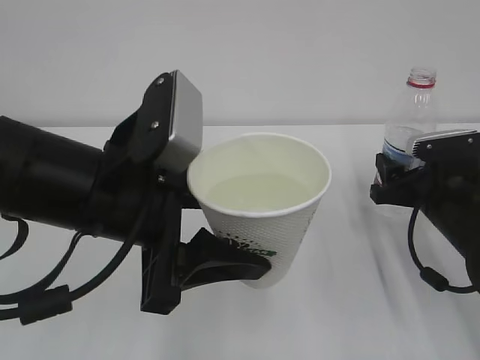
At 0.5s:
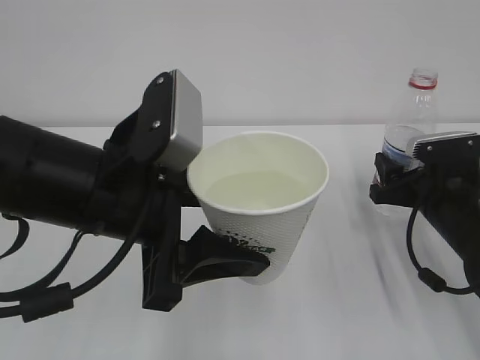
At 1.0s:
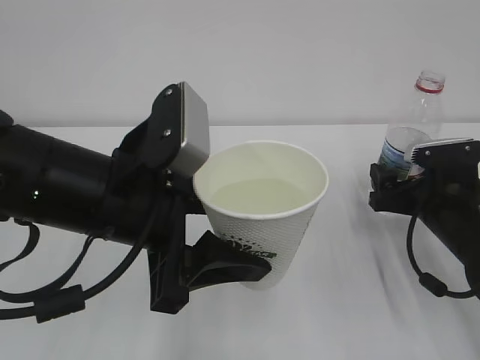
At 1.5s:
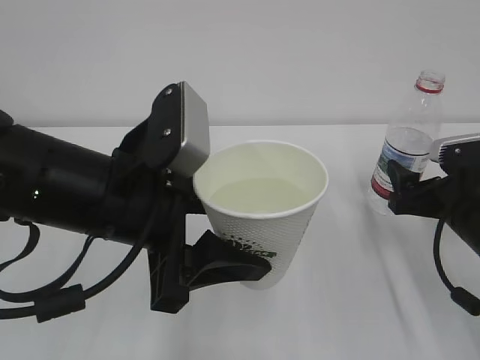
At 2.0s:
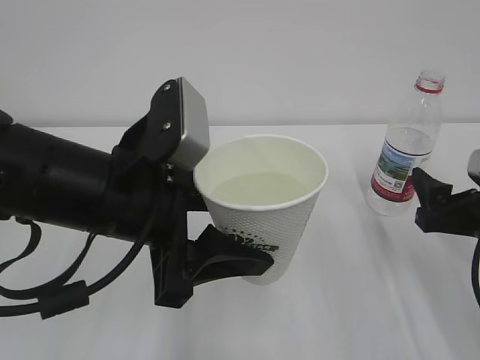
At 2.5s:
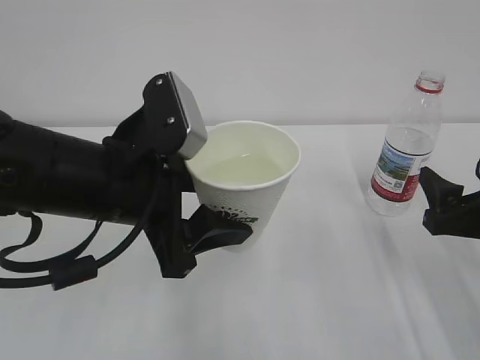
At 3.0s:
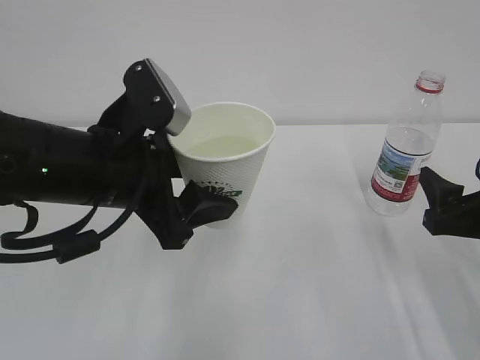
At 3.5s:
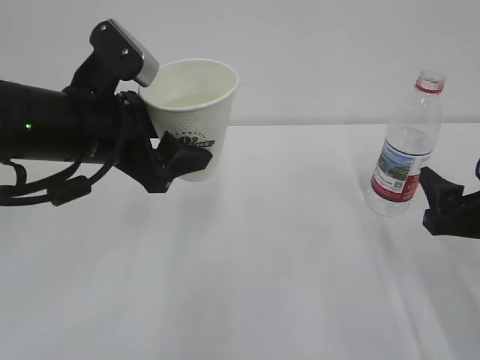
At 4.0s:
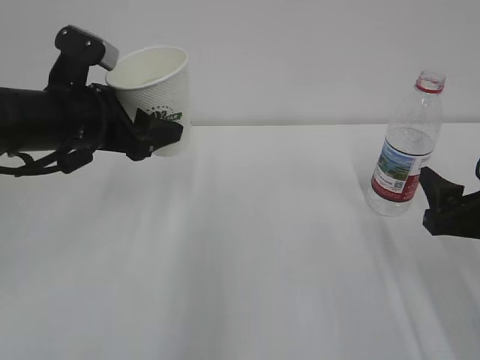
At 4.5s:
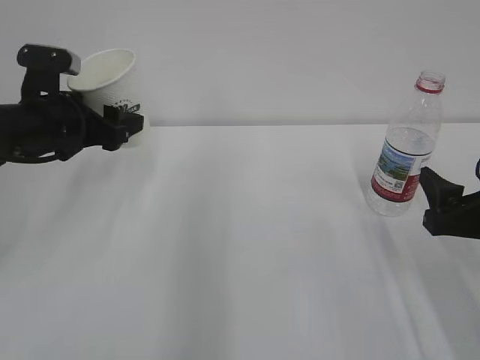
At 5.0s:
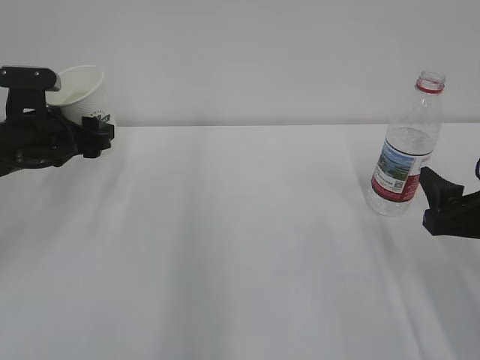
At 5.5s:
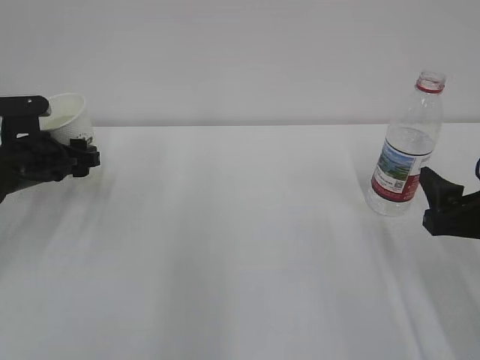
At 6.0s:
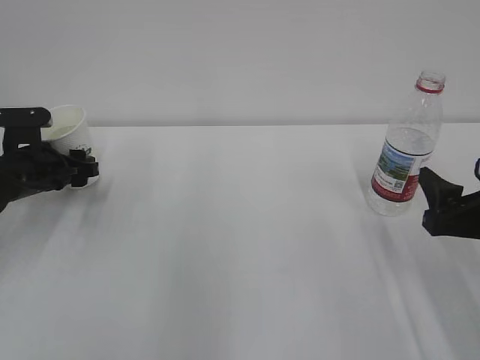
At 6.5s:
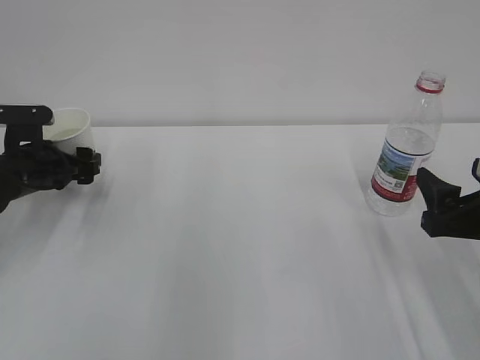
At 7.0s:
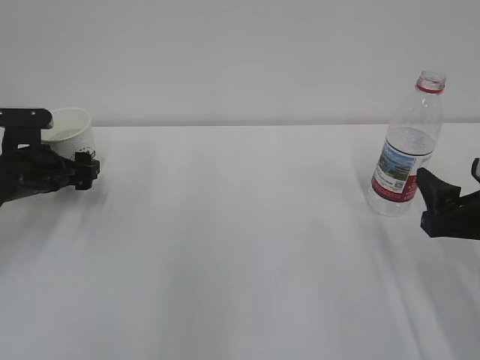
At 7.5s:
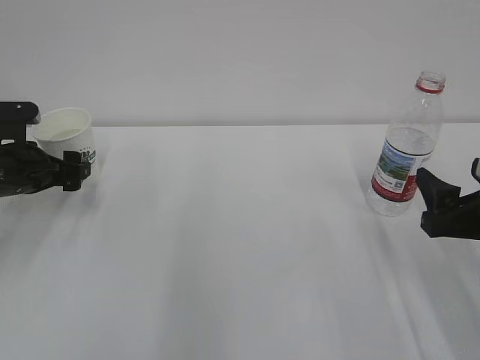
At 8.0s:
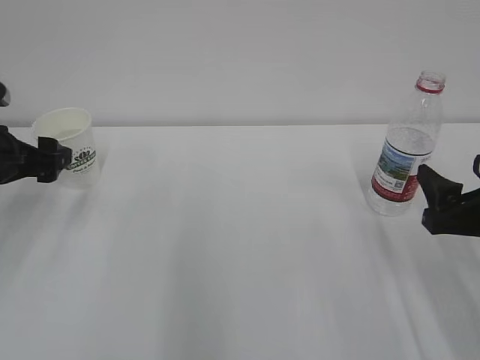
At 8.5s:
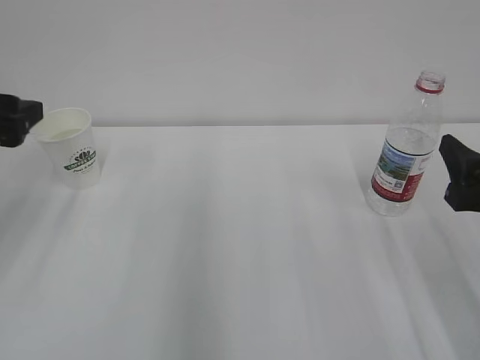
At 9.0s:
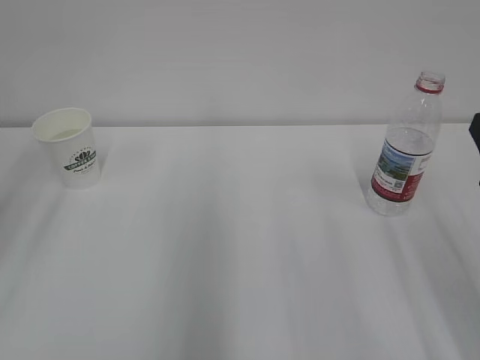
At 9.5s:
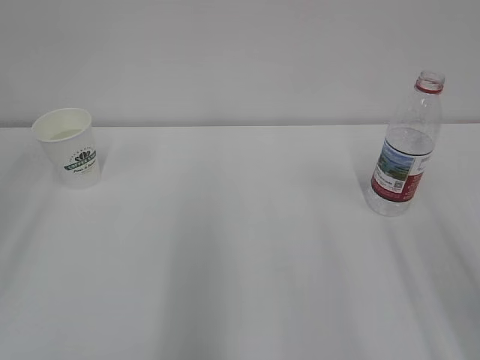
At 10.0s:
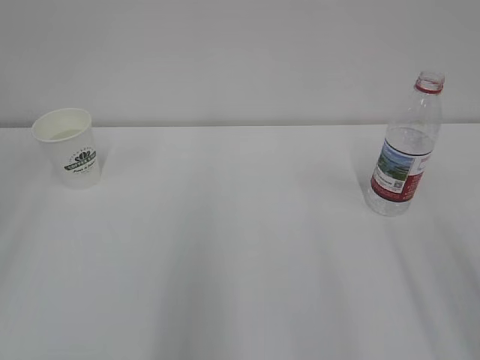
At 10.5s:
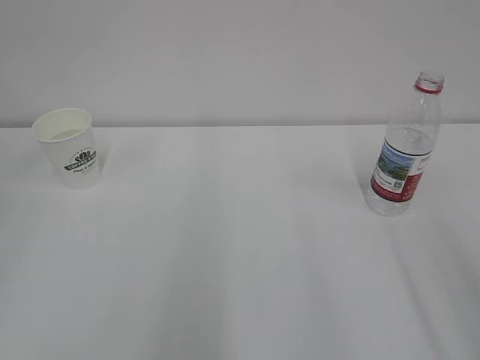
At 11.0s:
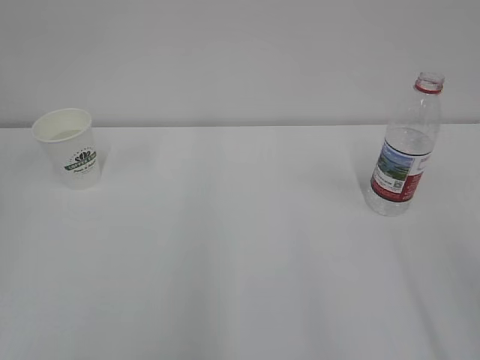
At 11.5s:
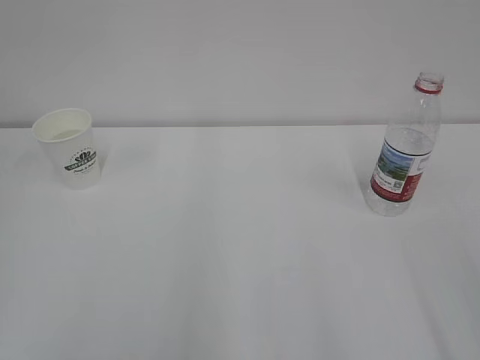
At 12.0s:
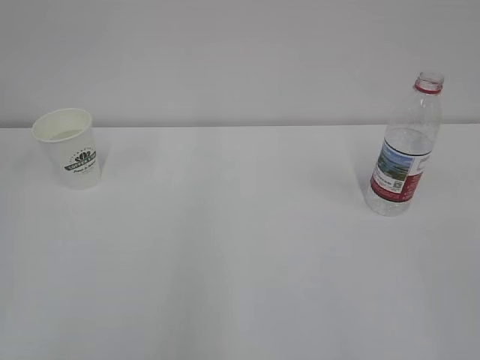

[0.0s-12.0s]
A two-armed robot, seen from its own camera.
0.0s to 2.0s: The right gripper moves backward, some 10 cm, and opens up.
2.0s to 4.0s: The left gripper is displaced forward and to the left by about 15 cm.
4.0s to 6.0s: The left gripper moves downward, to the left and forward, about 15 cm.
6.0s to 8.0s: The left gripper goes about 10 cm upward and backward, and opens its fingers.
8.0s to 10.0s: The right gripper heads upward and backward, covering some 15 cm. The left gripper goes about 25 cm backward and upward.

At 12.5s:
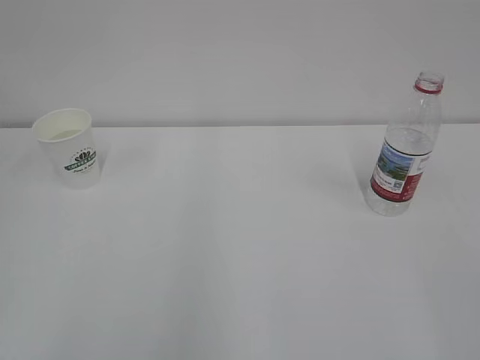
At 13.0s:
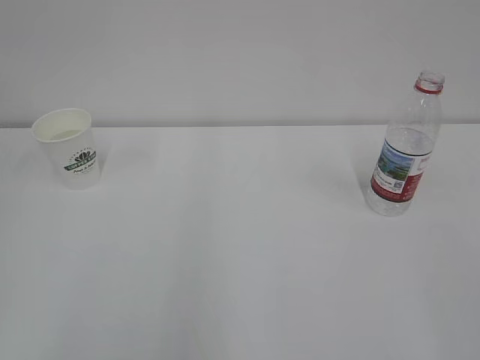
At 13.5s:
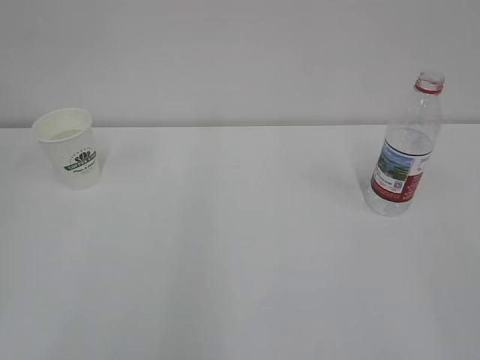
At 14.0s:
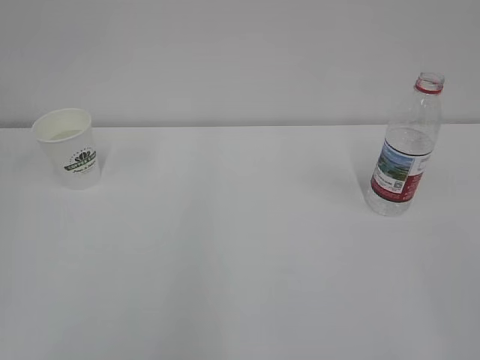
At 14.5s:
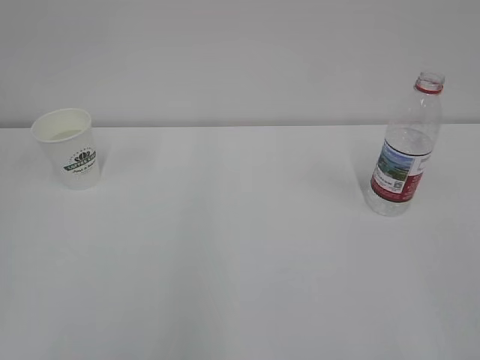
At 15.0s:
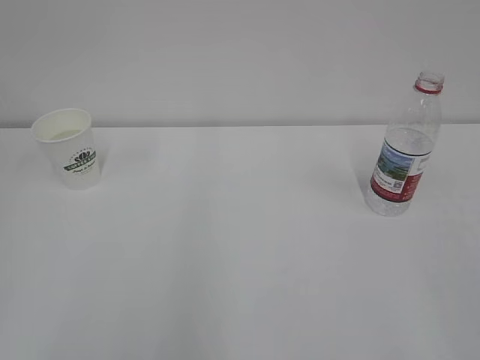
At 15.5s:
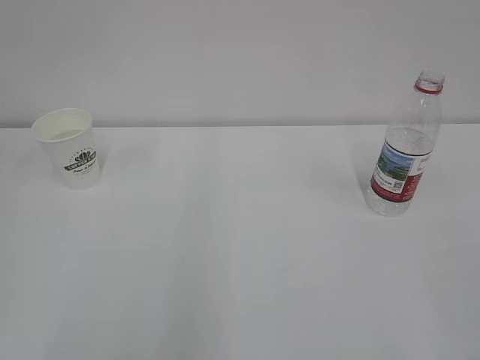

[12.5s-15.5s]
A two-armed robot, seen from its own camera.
12.5s to 14.0s: Both grippers stay about where they are.

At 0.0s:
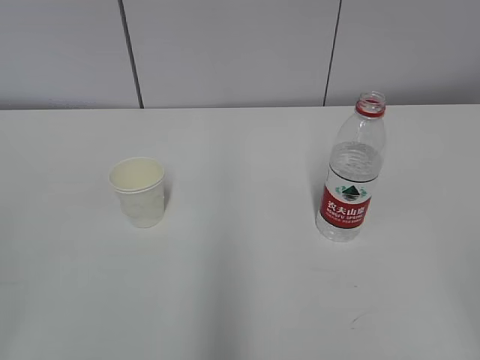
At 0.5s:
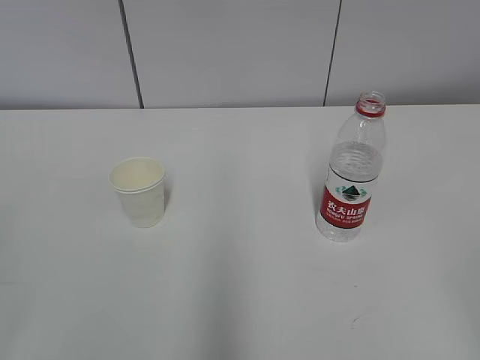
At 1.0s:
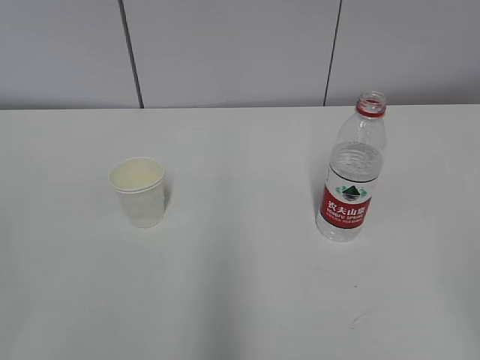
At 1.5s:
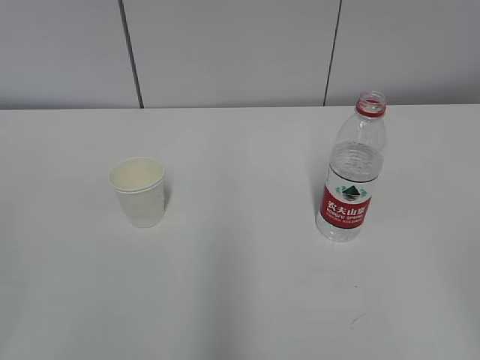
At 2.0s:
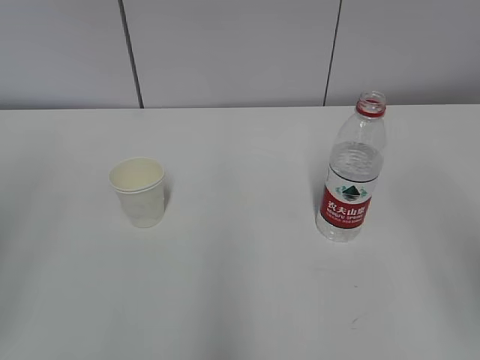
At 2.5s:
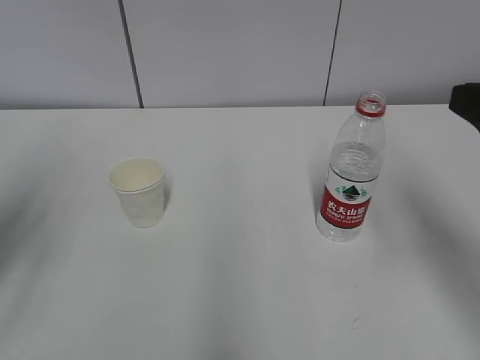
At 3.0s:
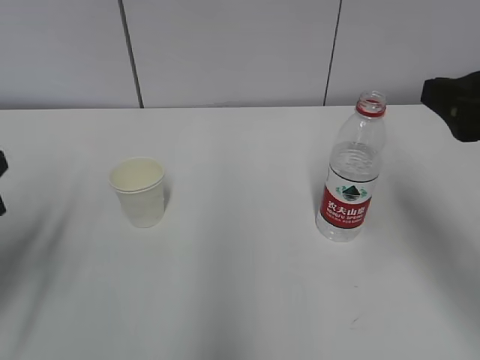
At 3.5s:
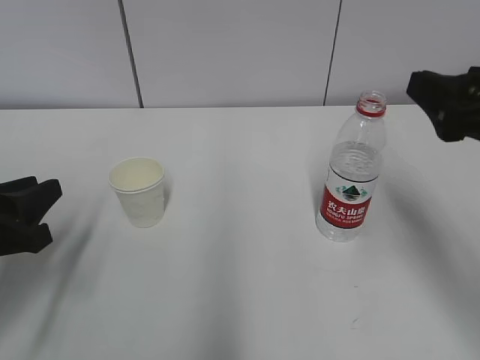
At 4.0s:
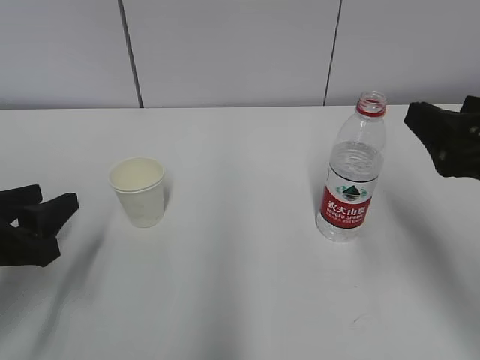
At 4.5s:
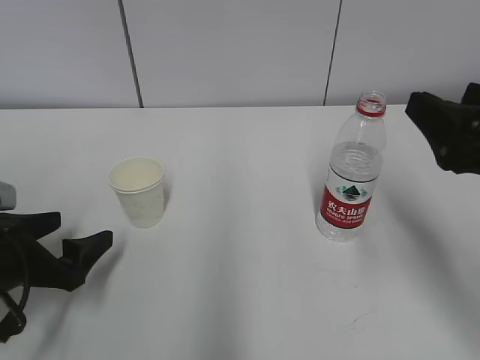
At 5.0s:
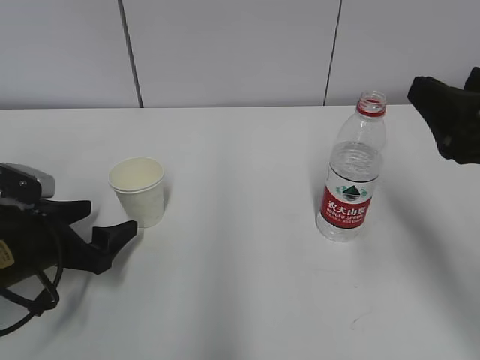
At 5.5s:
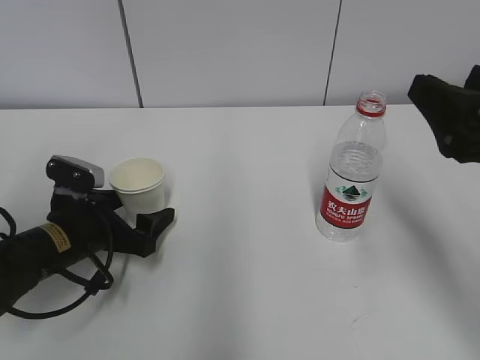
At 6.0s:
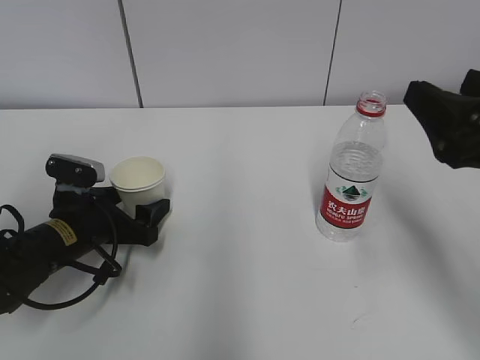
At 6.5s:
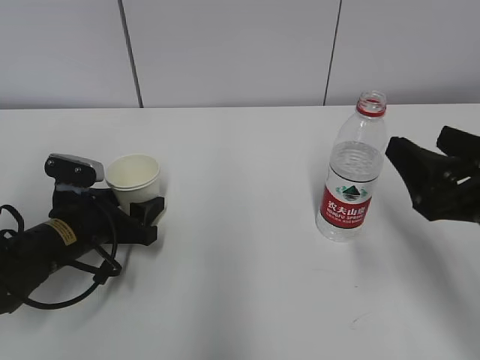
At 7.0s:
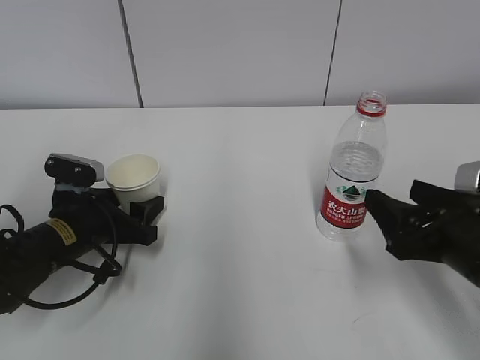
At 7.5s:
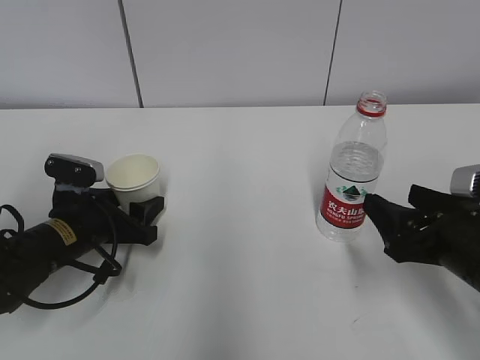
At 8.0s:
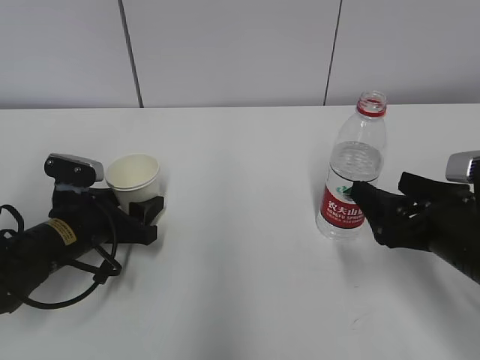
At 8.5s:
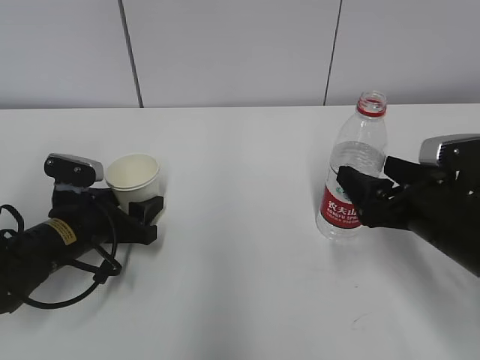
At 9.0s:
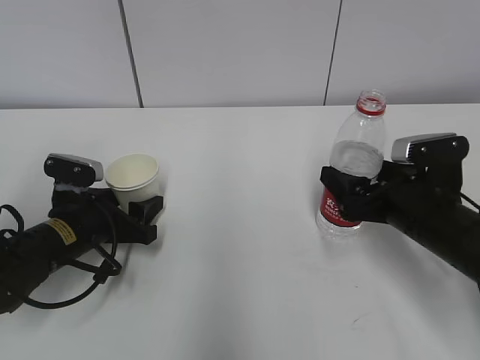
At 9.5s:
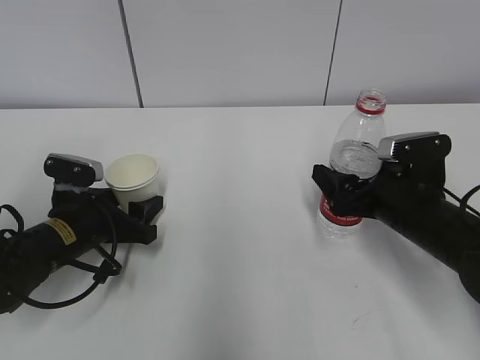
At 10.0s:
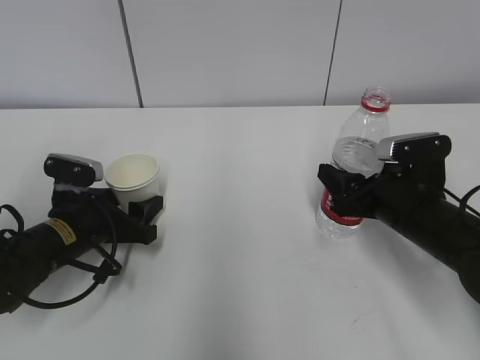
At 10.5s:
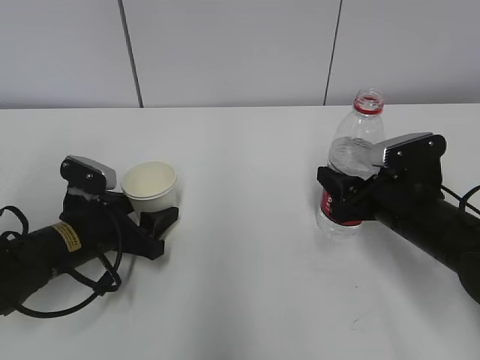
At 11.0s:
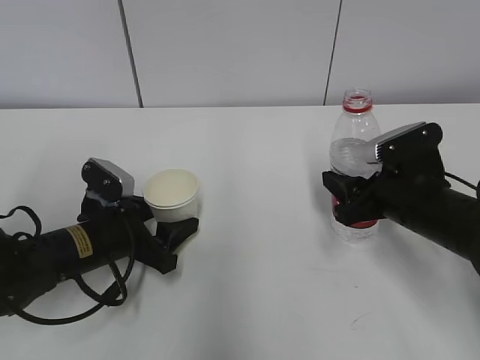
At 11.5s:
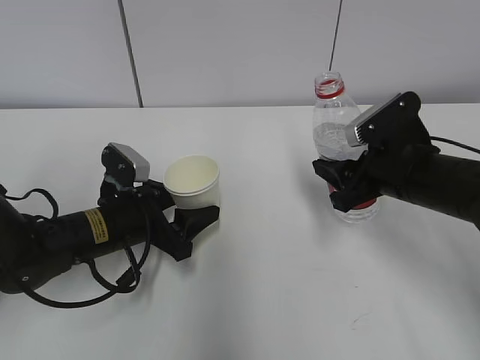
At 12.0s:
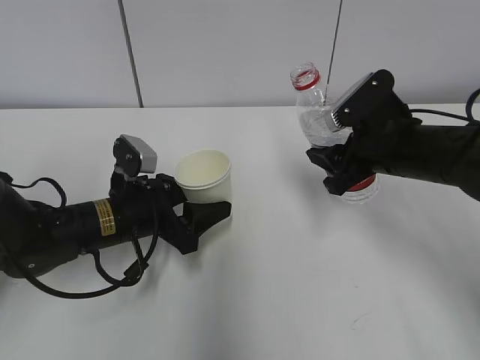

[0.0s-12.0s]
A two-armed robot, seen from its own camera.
Step, 0.0s to 8.0s: Grab the paper cup with the left hand.
2.0s to 4.0s: The left gripper travels downward and forward by about 20 cm, and opens its fingers, while the right gripper shifts about 15 cm forward and downward.
4.0s to 6.0s: The left gripper is displaced forward, downward and to the right by about 15 cm, and opens.
6.0s to 8.0s: The right gripper travels downward by approximately 10 cm. The left gripper closes its fingers.
8.0s to 10.0s: The right gripper moves forward, some 10 cm, and closes its fingers.
10.0s to 12.0s: The right gripper shifts about 5 cm upward; the left gripper travels to the right by approximately 5 cm.
